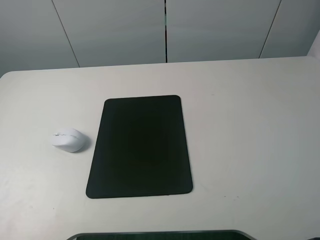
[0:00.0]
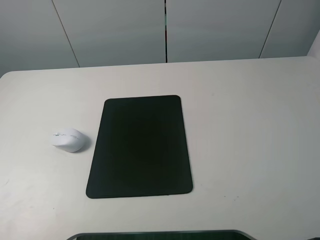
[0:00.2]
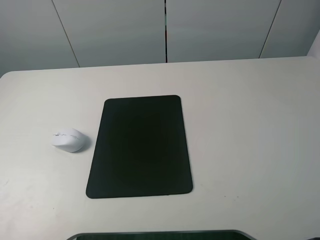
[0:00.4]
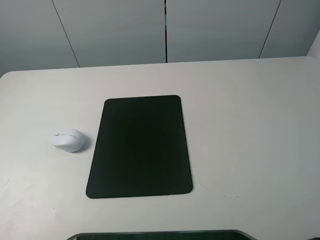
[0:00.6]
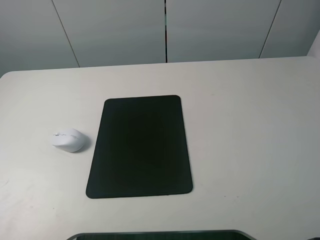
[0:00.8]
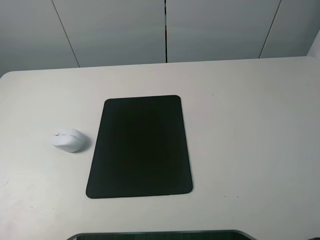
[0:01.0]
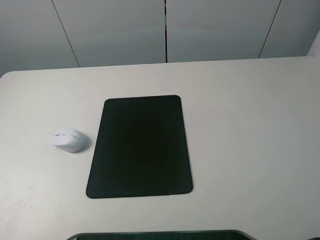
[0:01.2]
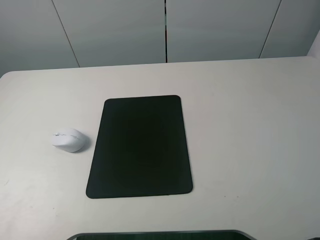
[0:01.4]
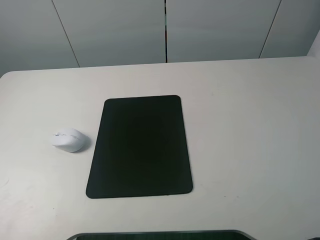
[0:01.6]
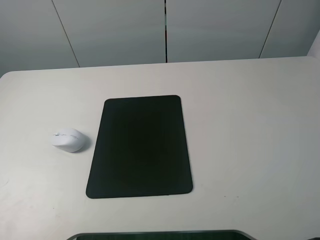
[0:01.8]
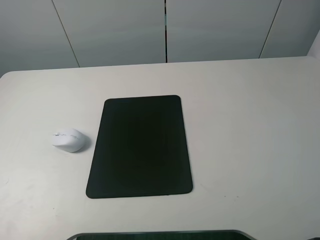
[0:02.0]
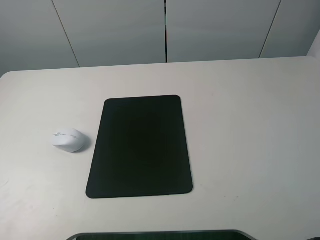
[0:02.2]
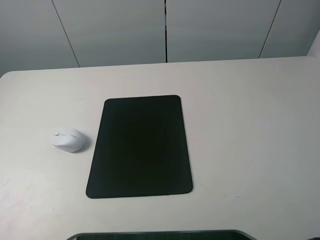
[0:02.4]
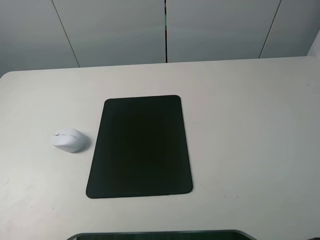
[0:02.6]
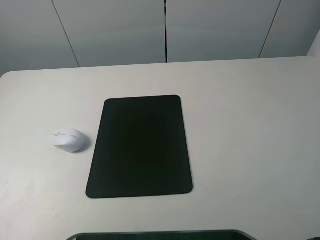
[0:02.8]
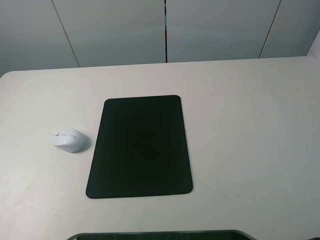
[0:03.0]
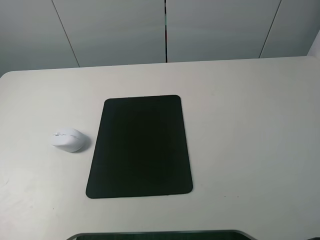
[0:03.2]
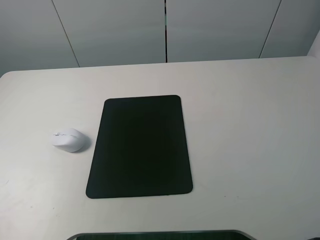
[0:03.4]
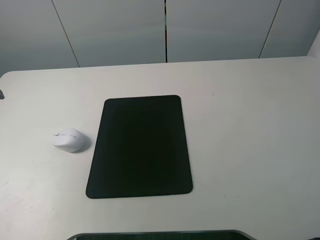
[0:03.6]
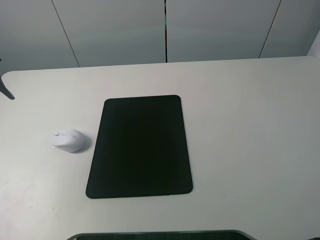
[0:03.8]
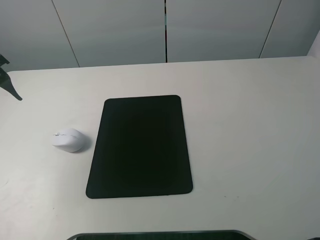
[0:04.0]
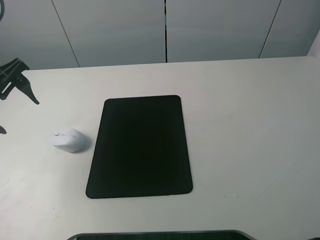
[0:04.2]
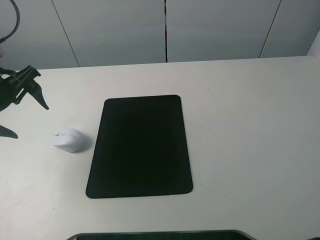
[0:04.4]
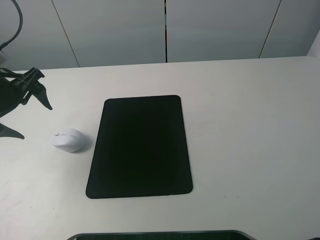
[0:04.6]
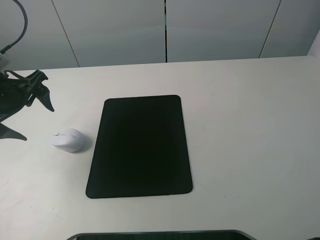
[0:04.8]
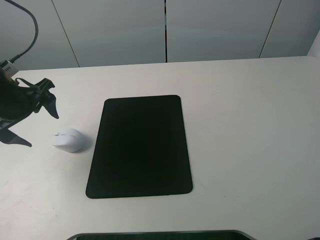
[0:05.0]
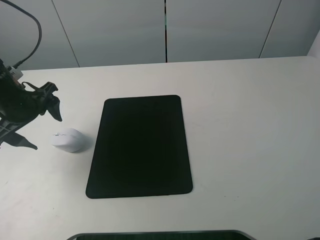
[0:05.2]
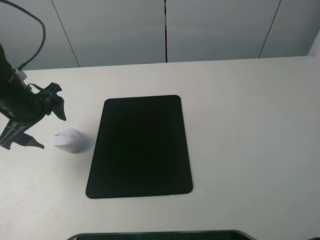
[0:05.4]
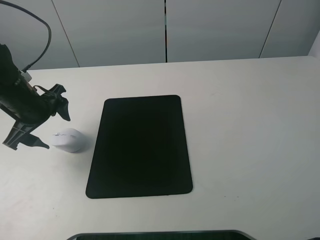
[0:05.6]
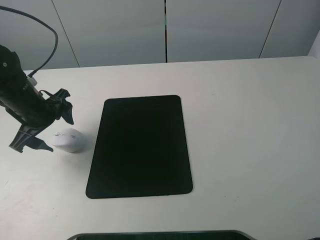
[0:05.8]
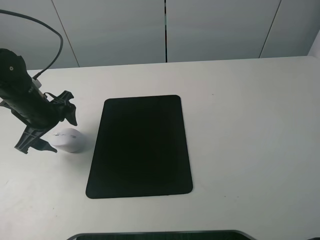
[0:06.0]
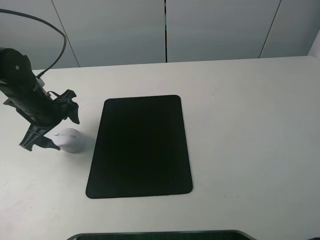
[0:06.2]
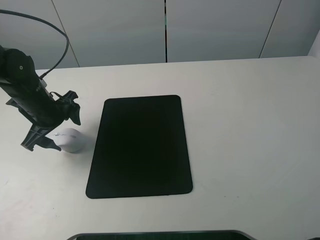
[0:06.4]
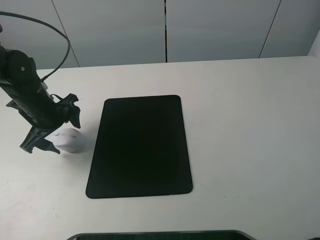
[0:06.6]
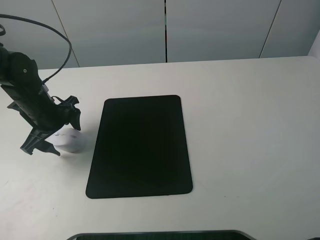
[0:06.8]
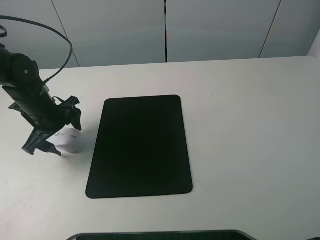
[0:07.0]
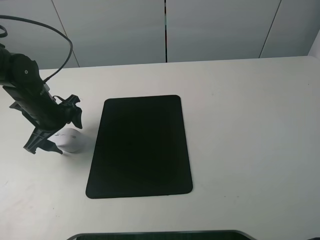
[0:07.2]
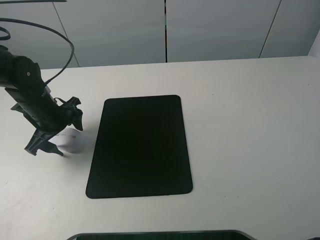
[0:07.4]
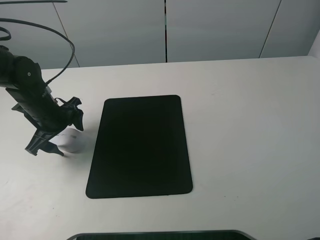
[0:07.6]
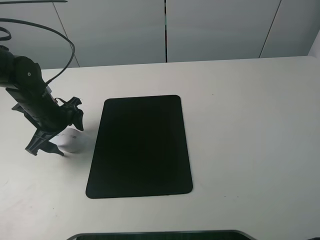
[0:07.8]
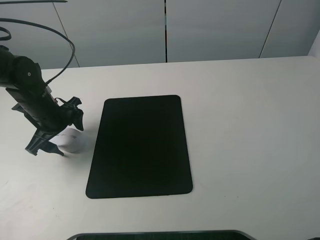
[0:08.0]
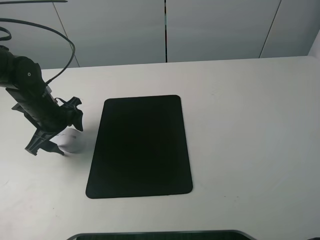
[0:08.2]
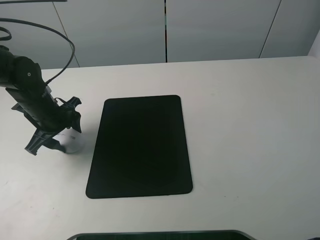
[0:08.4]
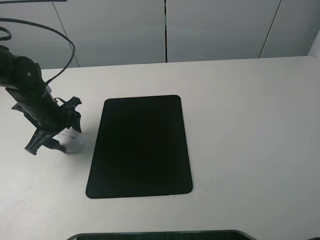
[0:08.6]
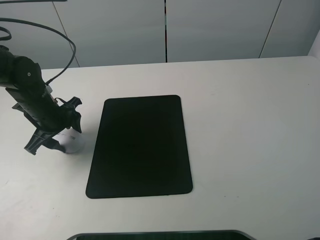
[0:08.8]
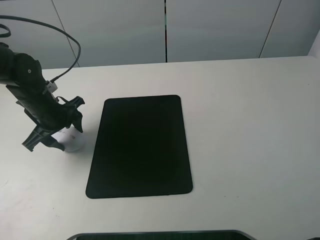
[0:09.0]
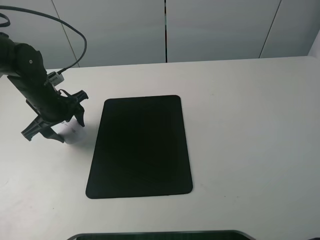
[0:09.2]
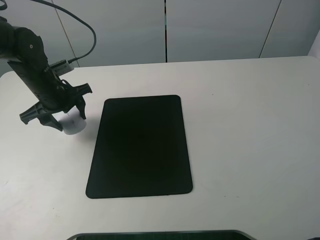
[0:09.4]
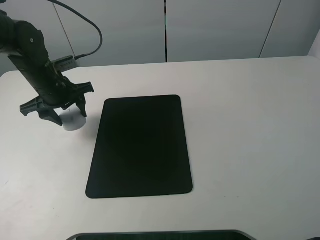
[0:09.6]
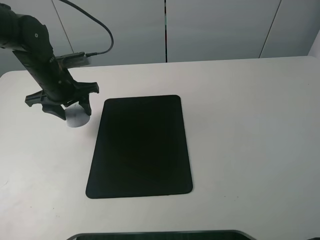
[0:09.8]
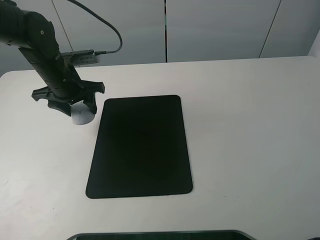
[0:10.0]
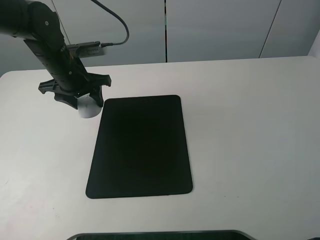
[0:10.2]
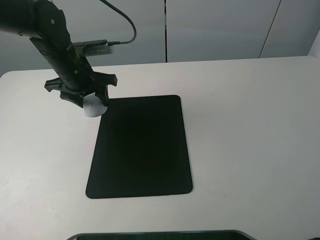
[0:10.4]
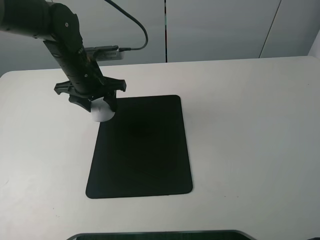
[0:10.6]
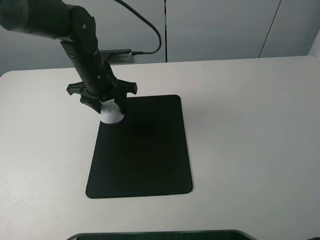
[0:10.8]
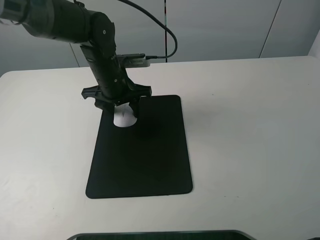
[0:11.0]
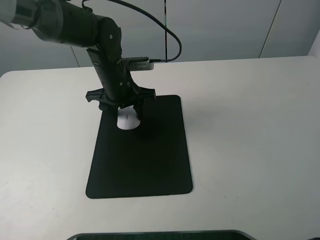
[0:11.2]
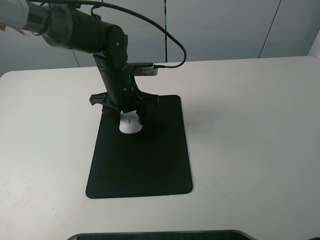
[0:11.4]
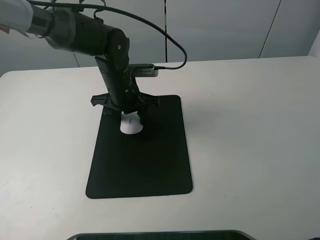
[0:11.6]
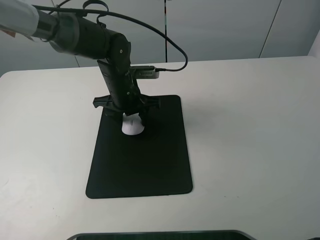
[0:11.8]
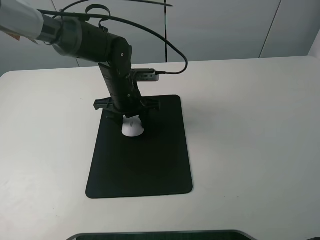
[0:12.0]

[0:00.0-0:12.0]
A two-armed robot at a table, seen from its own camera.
Step, 0:00.0 to 0:08.8: Grasp the mouse with the left gripper.
0:00.0 to 0:01.6: The two grippers keep their place.
0:03.0 to 0:04.4: The left gripper goes some 15 cm downward and forward.
0:04.4 to 0:06.0: The left gripper heads downward, covering some 10 cm.
0:06.0 to 0:07.6: The grippers make only small movements.
0:07.6 to 0:09.0: The left gripper closes.
0:09.0 to 0:10.4: The left gripper goes roughly 10 cm to the right and upward.
0:10.4 to 0:12.0: The left gripper goes some 10 cm to the right and downward.

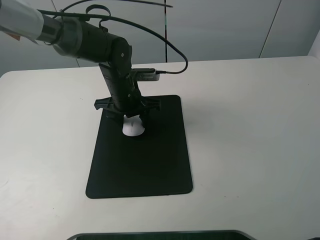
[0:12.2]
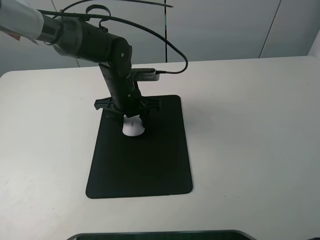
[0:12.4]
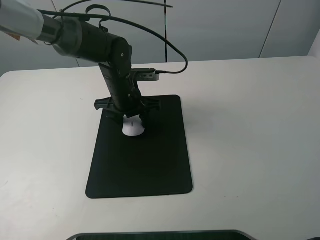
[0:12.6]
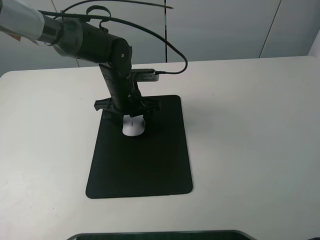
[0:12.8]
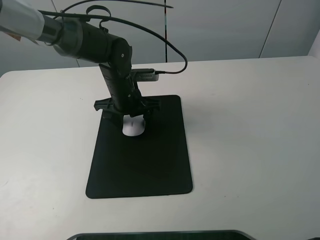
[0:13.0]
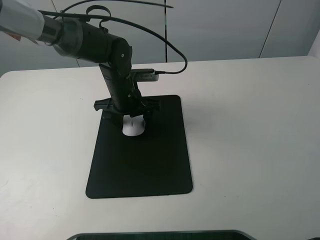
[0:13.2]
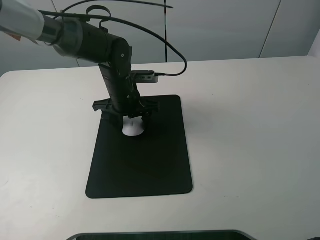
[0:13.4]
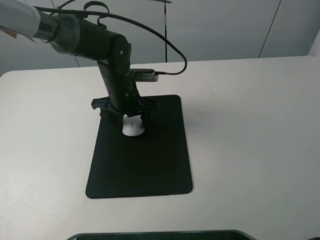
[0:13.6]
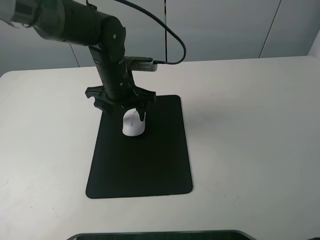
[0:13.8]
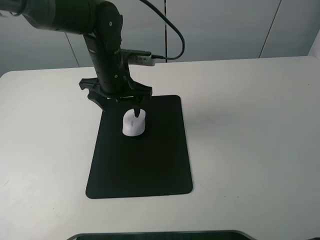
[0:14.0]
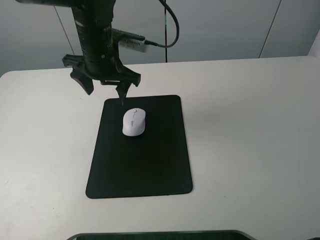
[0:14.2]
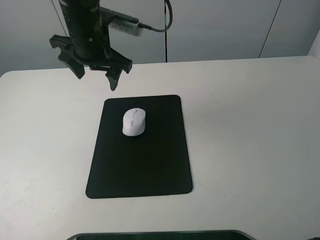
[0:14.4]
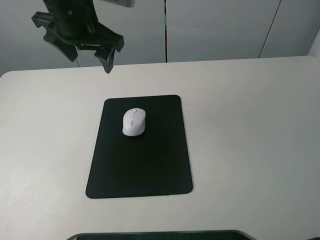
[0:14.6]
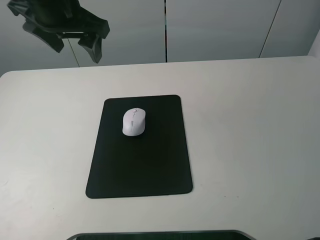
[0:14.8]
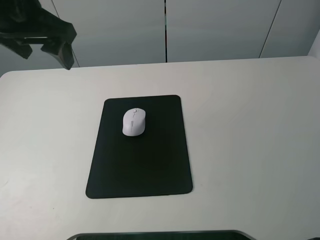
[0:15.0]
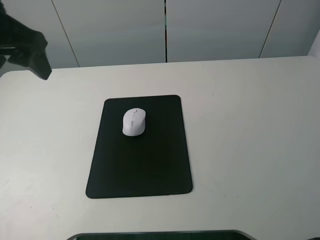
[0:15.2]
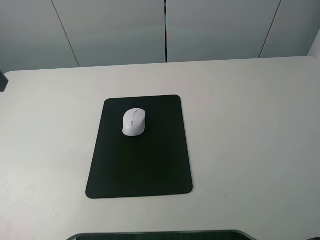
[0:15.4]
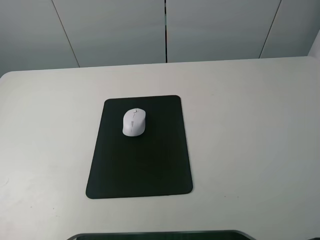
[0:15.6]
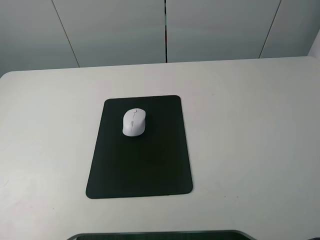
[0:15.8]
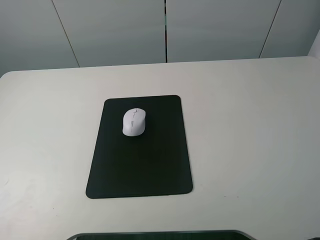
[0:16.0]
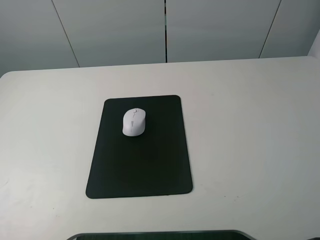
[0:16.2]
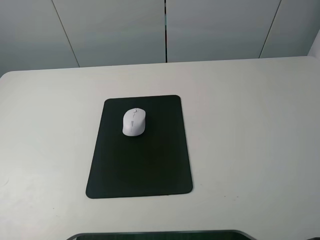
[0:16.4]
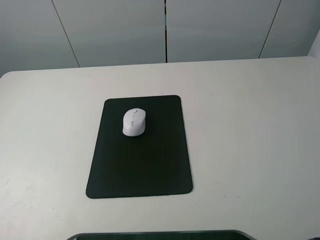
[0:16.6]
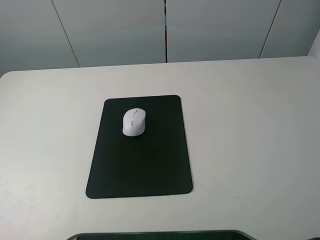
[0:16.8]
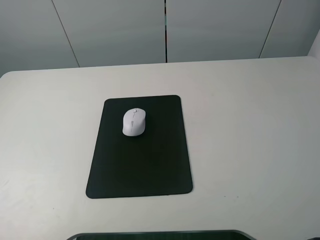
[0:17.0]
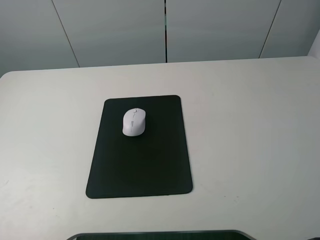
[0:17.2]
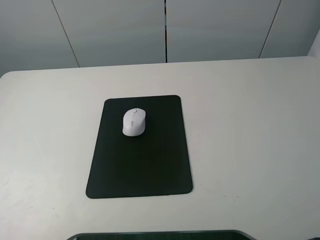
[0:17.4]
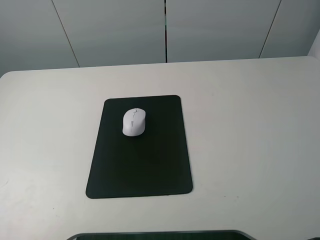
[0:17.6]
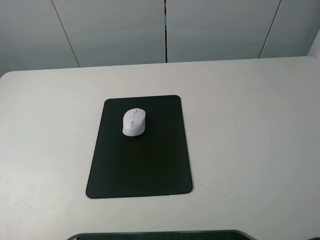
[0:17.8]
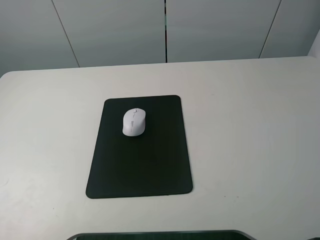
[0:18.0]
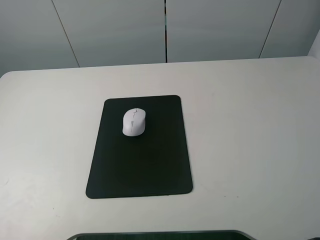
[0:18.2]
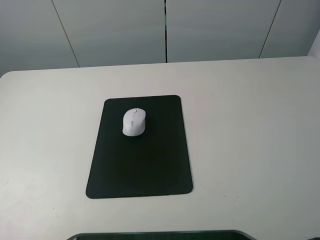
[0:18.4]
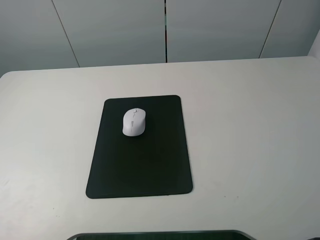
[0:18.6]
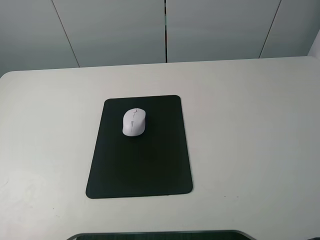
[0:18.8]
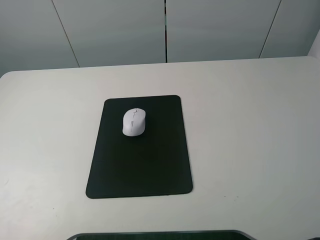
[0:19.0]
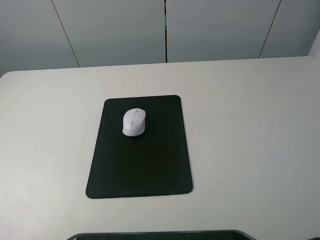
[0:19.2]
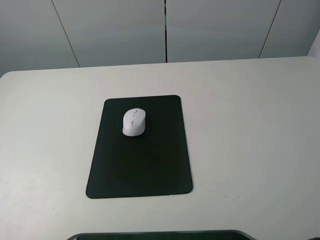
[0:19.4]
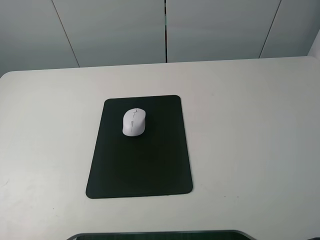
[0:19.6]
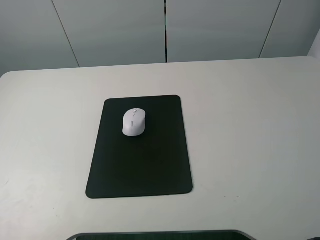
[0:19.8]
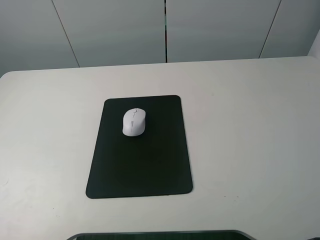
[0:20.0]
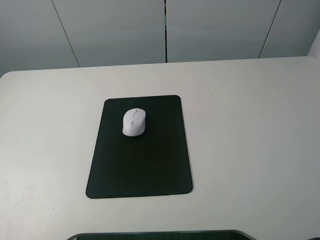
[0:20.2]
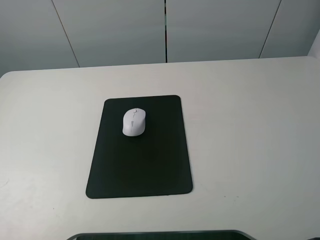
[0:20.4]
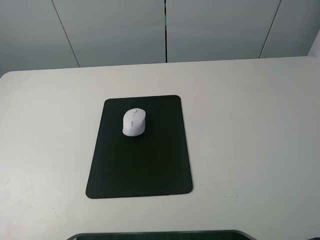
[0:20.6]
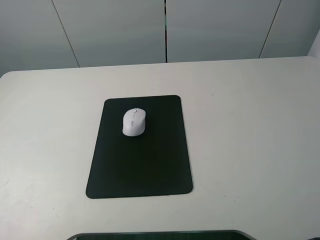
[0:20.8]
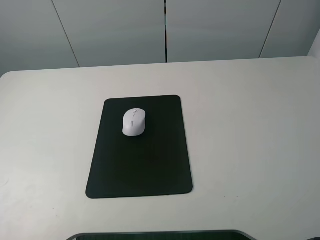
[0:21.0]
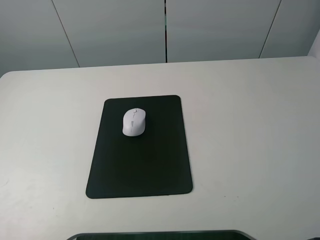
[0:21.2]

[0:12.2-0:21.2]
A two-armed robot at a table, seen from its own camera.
0:12.2 to 0:13.8: The left gripper opens up.
0:13.8 to 0:15.2: The left gripper heads upward, to the left and backward, covering approximately 25 cm.
0:15.2 to 0:16.6: The left gripper moves backward, approximately 25 cm.
0:18.2 to 0:21.2: Both grippers stay about where they are.
